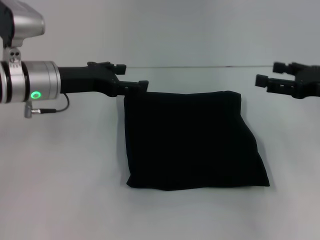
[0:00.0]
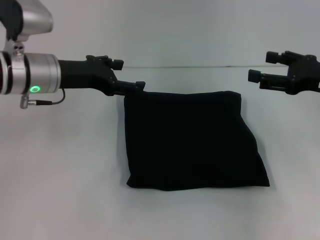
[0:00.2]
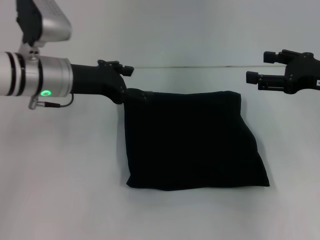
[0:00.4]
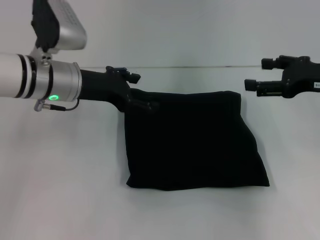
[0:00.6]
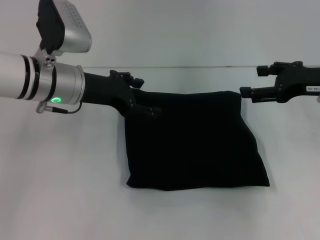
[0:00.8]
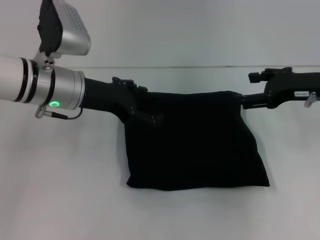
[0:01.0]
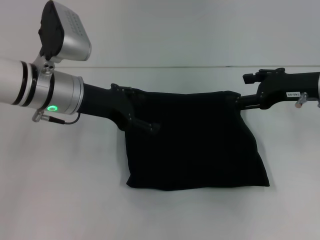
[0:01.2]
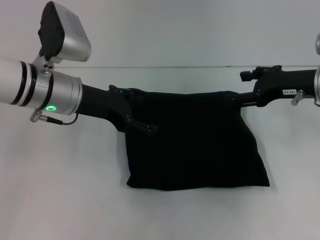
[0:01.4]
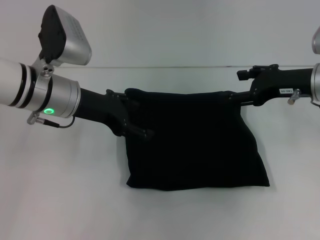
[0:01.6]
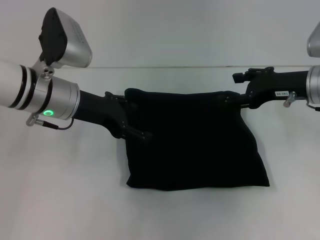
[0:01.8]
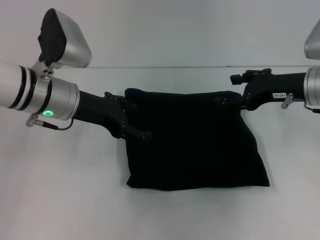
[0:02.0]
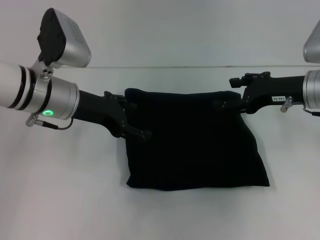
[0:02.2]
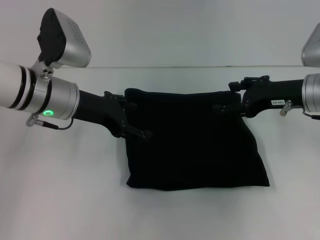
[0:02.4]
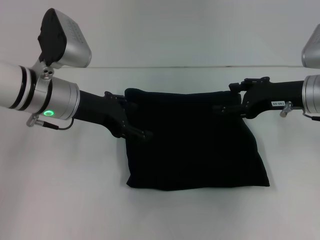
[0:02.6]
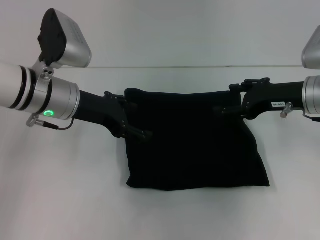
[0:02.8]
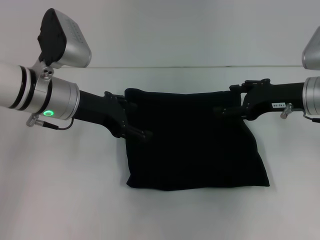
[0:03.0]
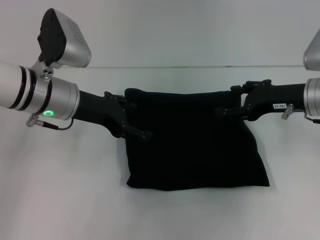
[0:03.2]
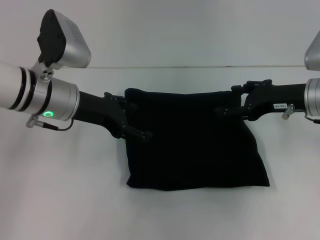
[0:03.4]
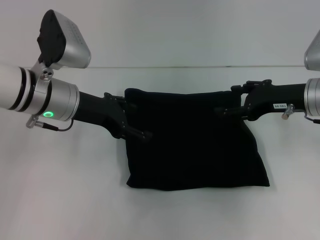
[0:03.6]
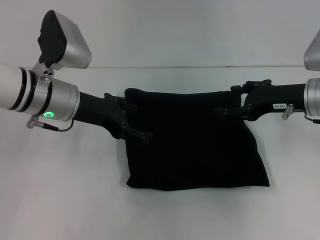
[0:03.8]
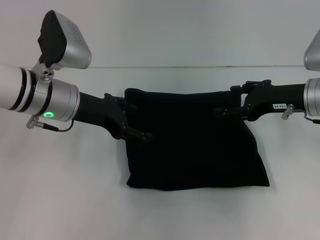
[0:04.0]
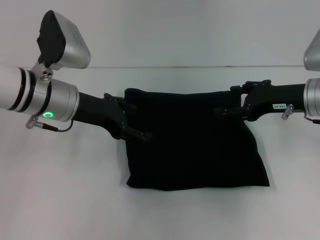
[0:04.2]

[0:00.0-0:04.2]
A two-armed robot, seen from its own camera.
0:00.0 to 0:01.4: The right gripper shifts about 5 cm to the left.
0:01.4 to 0:02.8: The grippers make only small movements.
0:02.8 to 0:04.2: Neither gripper changes place.

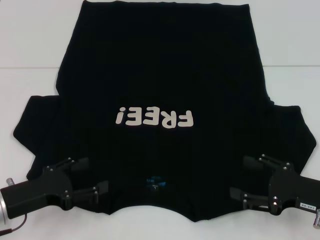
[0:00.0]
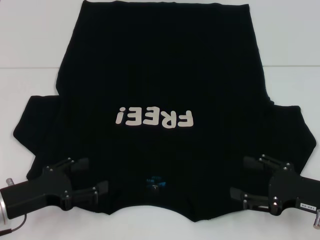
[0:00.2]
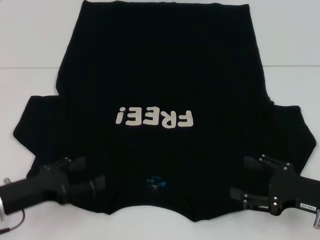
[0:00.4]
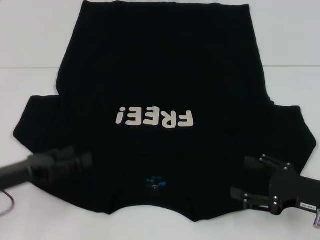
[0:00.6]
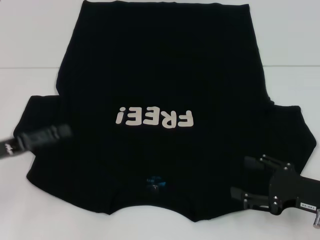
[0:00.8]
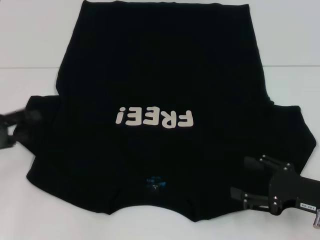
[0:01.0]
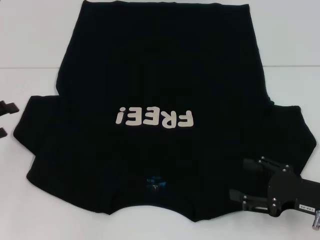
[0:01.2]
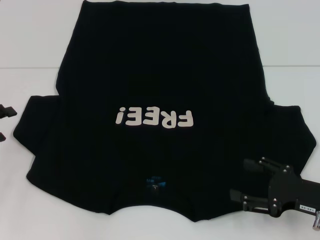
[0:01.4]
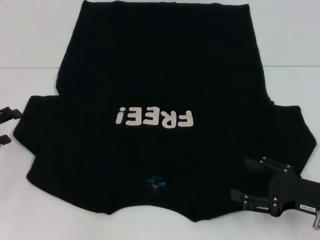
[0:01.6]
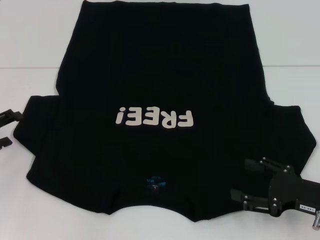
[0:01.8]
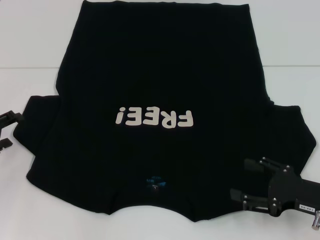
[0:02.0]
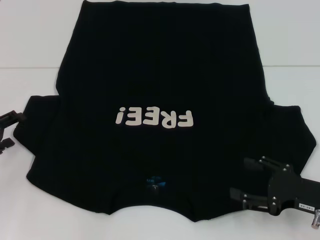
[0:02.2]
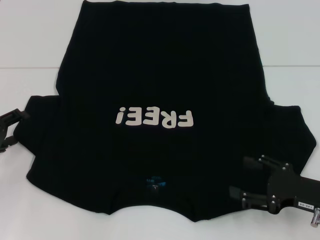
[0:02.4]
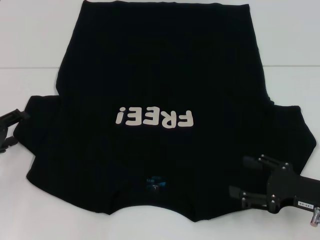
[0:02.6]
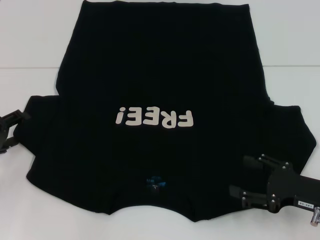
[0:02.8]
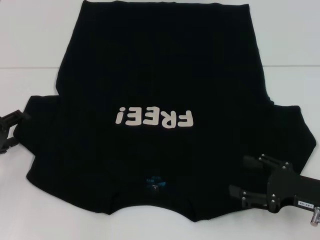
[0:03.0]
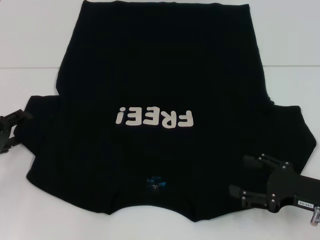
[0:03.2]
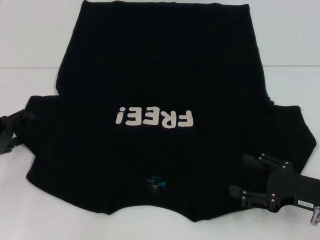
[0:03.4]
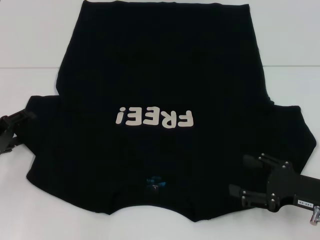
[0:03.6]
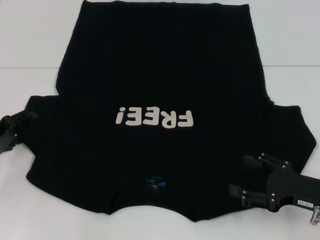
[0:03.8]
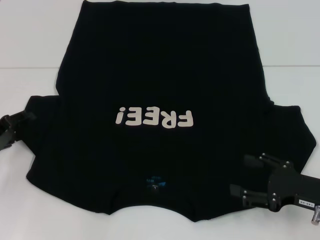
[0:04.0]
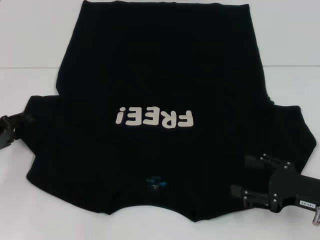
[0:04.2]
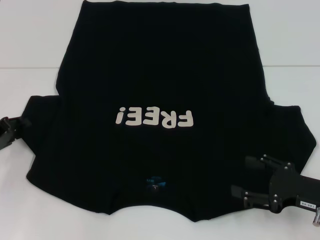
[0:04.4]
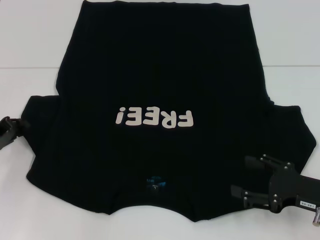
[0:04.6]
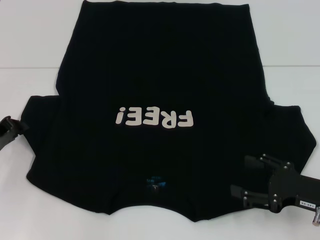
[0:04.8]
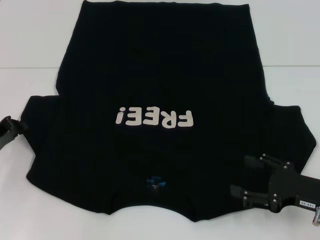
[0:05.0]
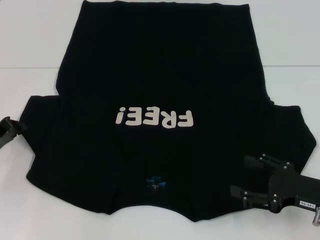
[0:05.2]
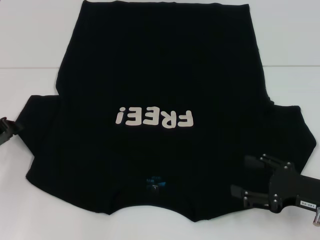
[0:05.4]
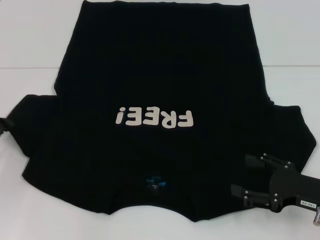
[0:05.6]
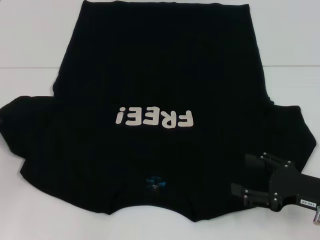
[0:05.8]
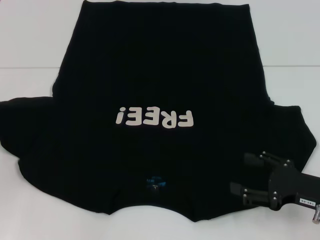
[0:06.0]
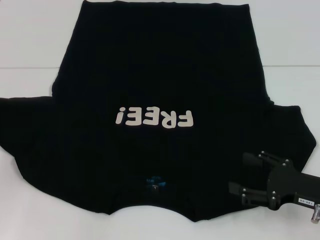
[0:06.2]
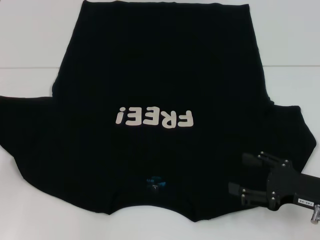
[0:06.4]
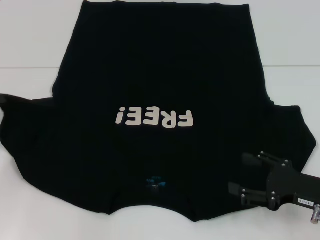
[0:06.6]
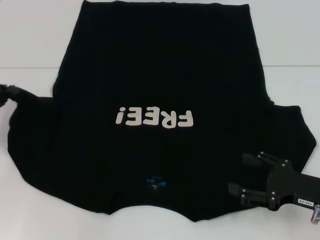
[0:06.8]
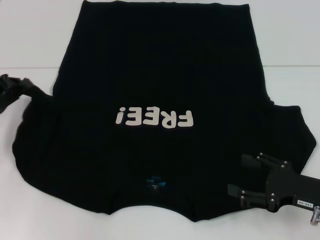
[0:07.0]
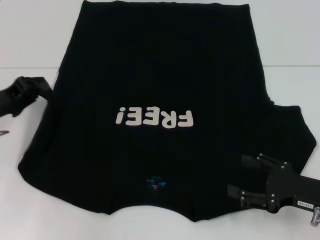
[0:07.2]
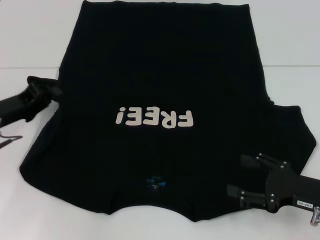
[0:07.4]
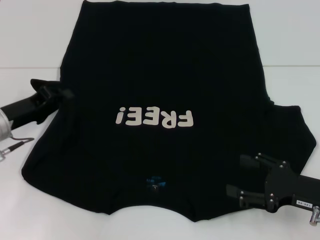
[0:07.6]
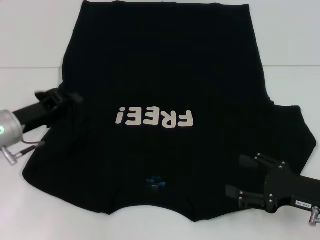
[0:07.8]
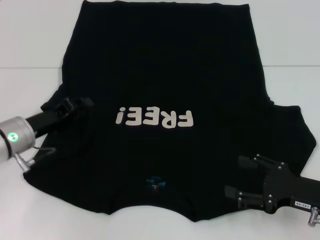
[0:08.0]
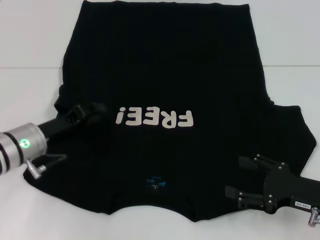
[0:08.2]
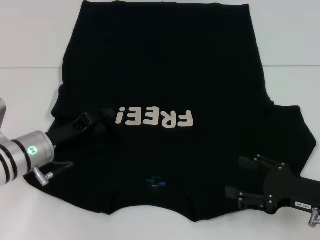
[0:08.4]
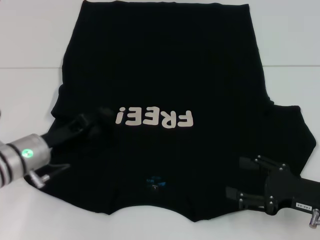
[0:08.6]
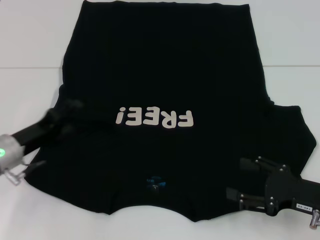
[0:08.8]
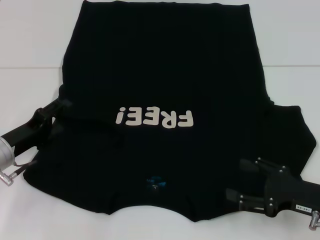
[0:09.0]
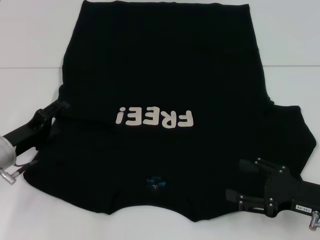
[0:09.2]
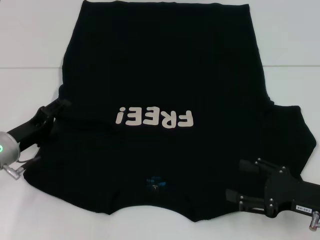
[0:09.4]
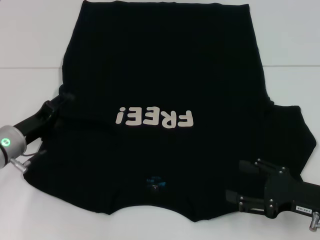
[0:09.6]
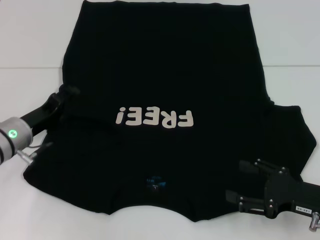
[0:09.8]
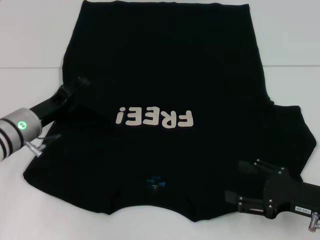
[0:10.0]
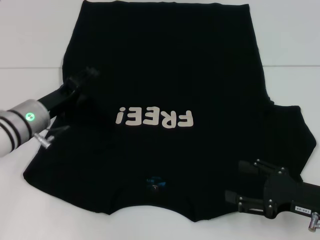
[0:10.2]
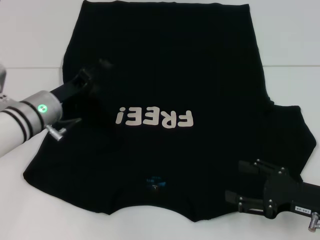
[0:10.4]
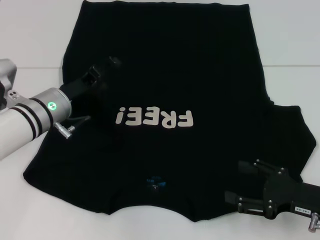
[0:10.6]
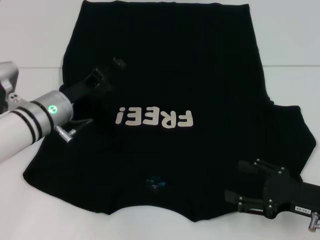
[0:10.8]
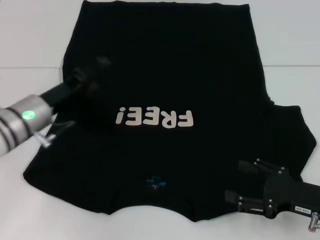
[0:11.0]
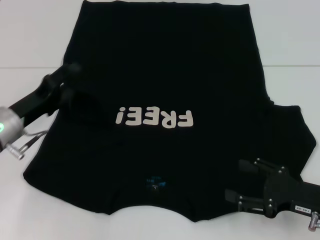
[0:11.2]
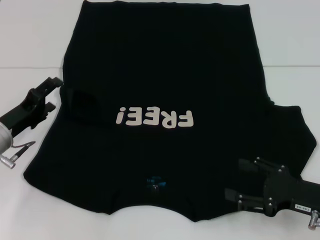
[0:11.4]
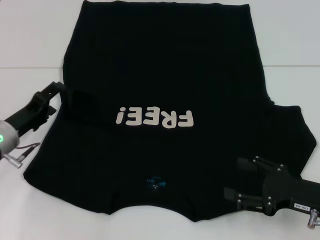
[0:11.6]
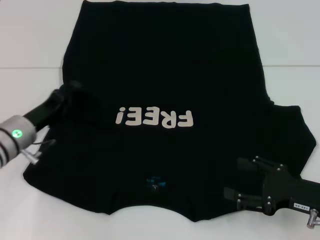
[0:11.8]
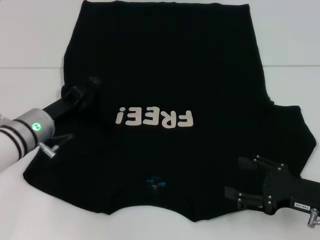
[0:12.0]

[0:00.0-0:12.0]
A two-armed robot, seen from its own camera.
Step, 0:00.0 to 0:10.4: Fold the bottom left sleeve with your left hand.
0:00.0 to 0:01.6: The left gripper moves to the left and forward, roughly 10 cm.
0:01.6 to 0:03.0: The grippers stay close to where they were, moving slightly.
0:04.4 to 0:06.0: The left gripper closes its fingers.
0:06.0 to 0:07.6: The left gripper goes about 10 cm to the right.
0:07.6 to 0:09.0: The left gripper shifts by some 5 cm, and opens up.
0:09.0 to 0:10.4: The left gripper goes about 10 cm to the right and forward.
0:10.4 to 0:12.0: The left gripper moves some 5 cm to the left and comes back.

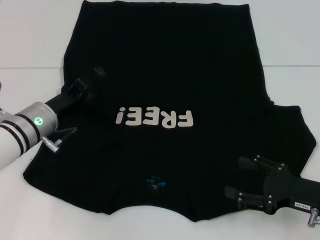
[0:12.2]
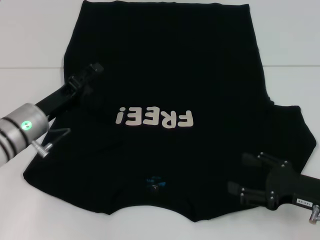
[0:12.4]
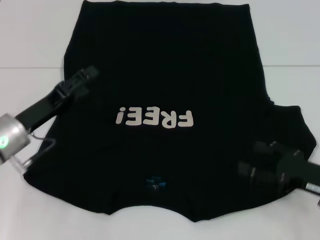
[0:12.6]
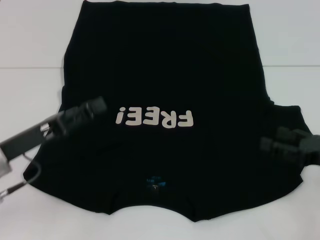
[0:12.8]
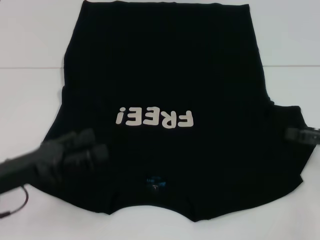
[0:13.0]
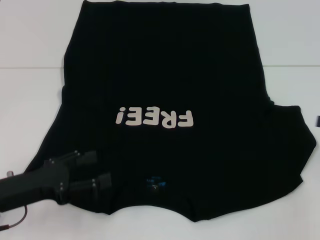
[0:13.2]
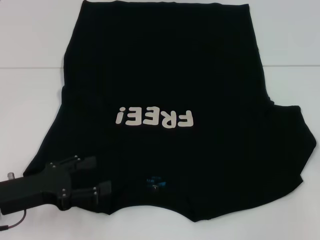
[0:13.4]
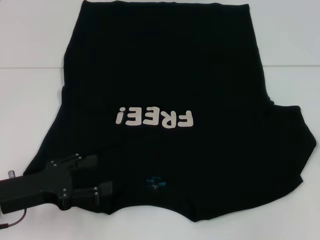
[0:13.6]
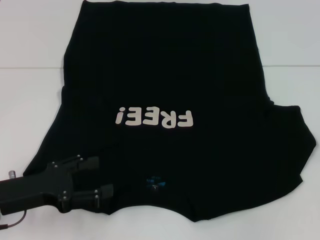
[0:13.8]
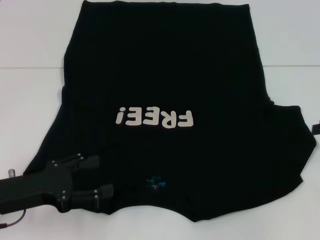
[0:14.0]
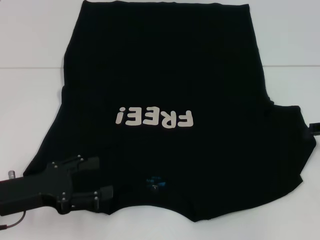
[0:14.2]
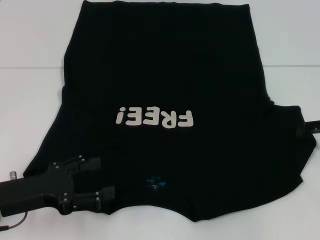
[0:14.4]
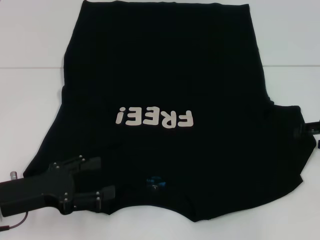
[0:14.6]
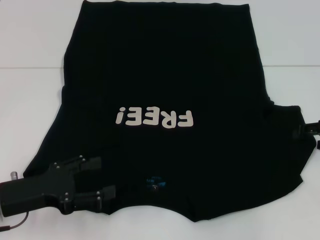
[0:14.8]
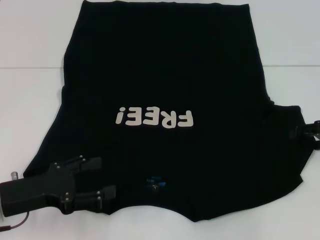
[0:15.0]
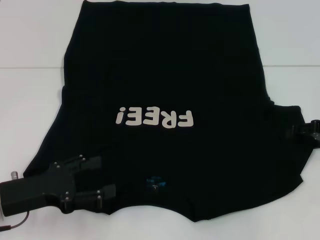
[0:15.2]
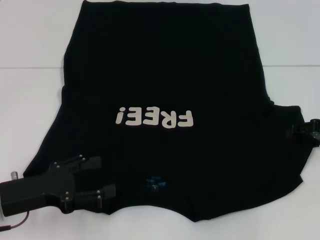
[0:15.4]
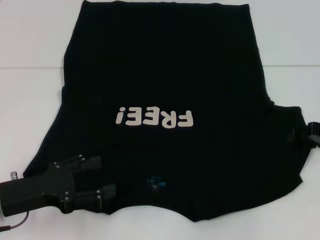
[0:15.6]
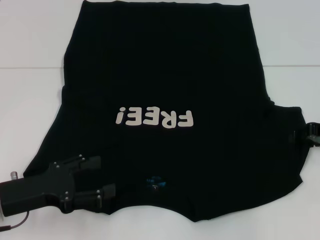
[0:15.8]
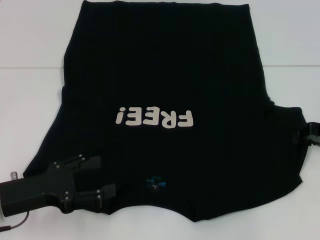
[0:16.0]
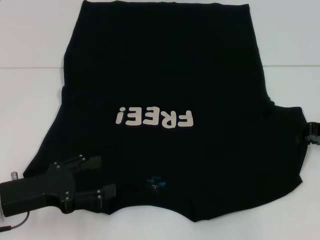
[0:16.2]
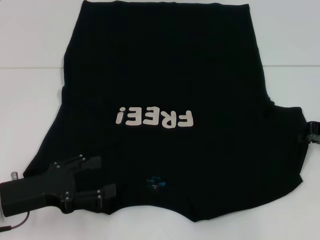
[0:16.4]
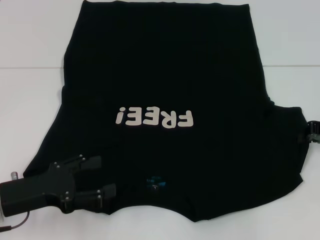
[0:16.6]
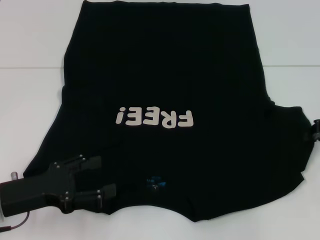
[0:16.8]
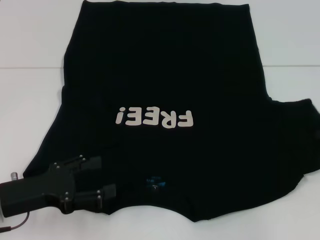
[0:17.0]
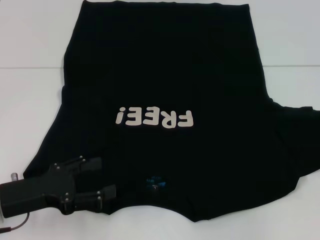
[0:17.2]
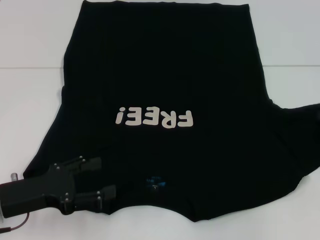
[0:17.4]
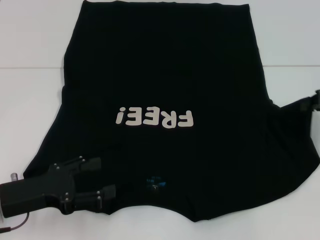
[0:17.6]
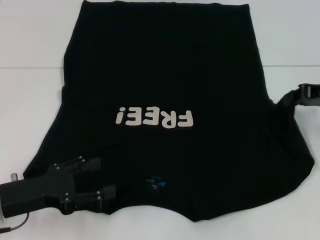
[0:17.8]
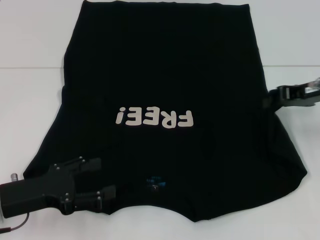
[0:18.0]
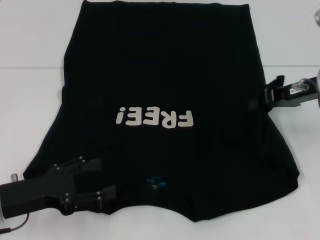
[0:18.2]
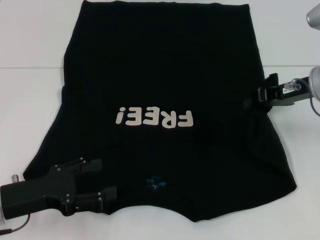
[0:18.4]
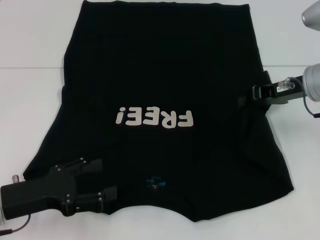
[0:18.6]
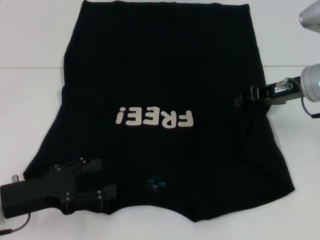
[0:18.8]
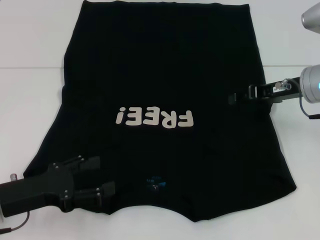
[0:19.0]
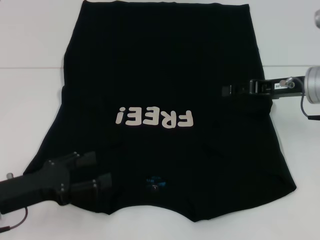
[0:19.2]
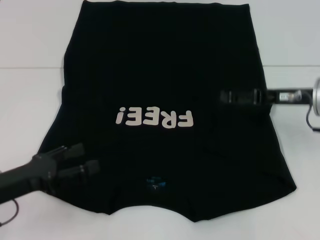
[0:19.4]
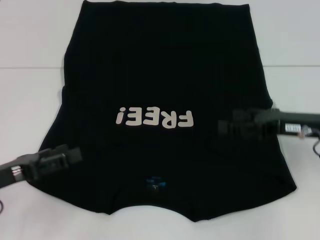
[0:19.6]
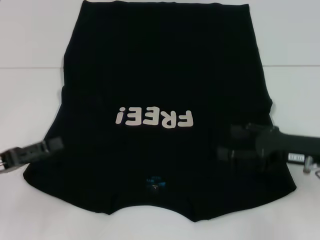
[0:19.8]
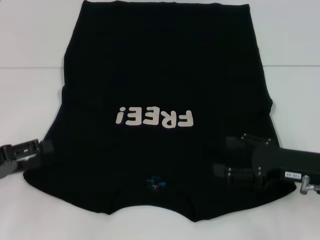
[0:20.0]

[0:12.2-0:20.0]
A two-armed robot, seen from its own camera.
Step, 0:12.2 to 0:19.6: Fold the bottom right sleeve with your right hand.
0:12.2 to 0:13.8: The left gripper travels backward and to the left by roughly 15 cm, while the right gripper is displaced to the right, upward and forward by some 20 cm.
0:16.8 to 0:18.4: The right gripper travels to the left by some 10 cm.
0:18.4 to 0:20.0: The left gripper moves to the left, some 10 cm. Meanwhile the right gripper travels backward and downward by roughly 15 cm, and opens.
